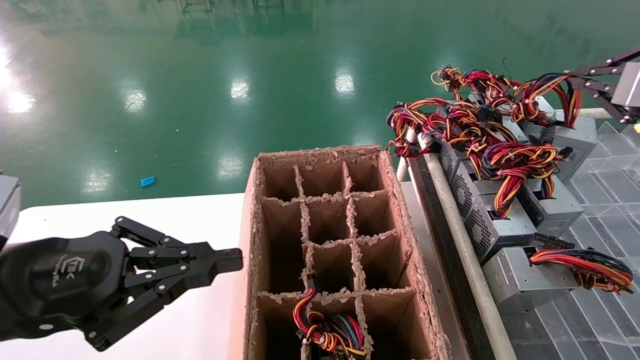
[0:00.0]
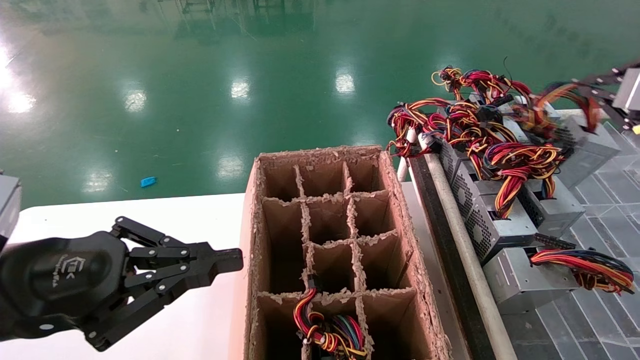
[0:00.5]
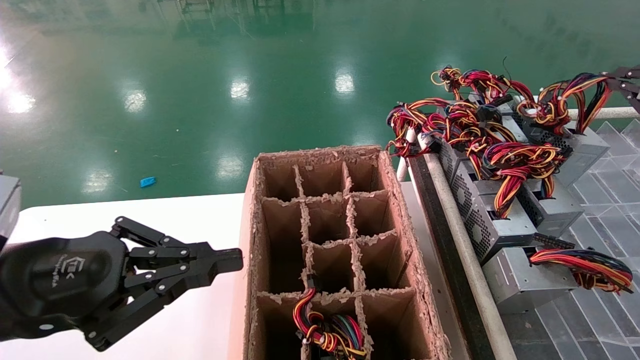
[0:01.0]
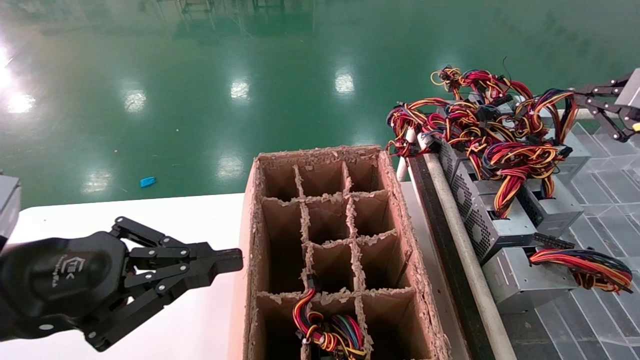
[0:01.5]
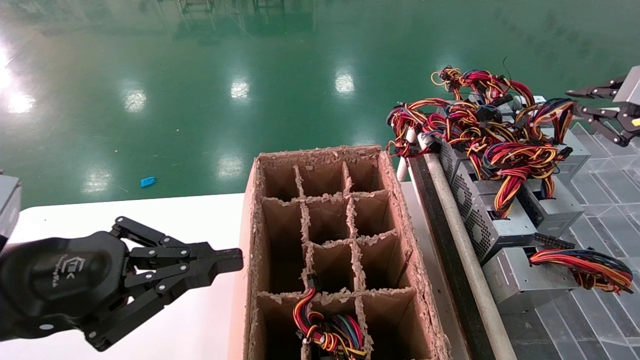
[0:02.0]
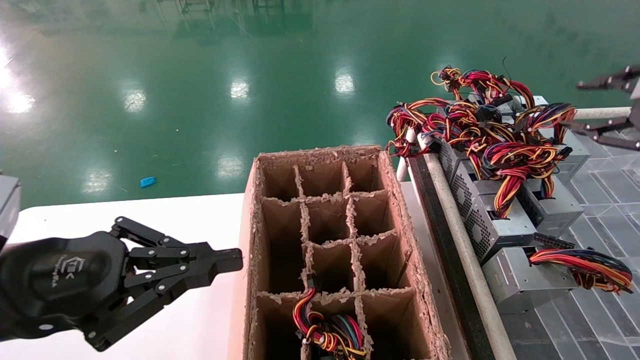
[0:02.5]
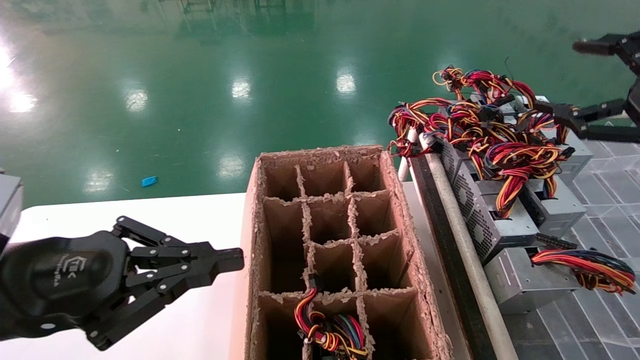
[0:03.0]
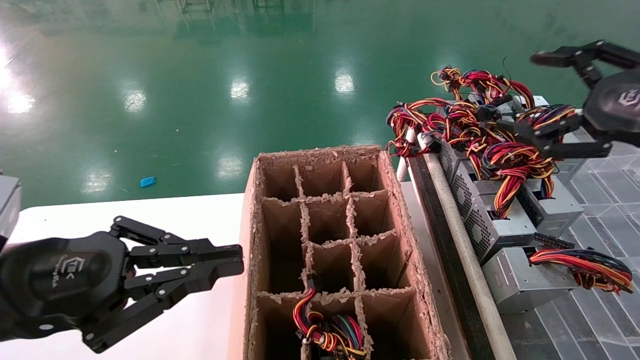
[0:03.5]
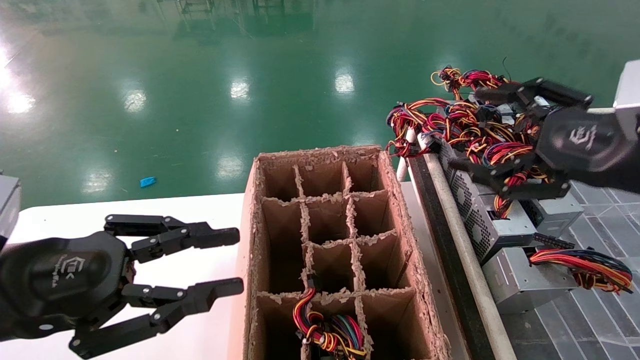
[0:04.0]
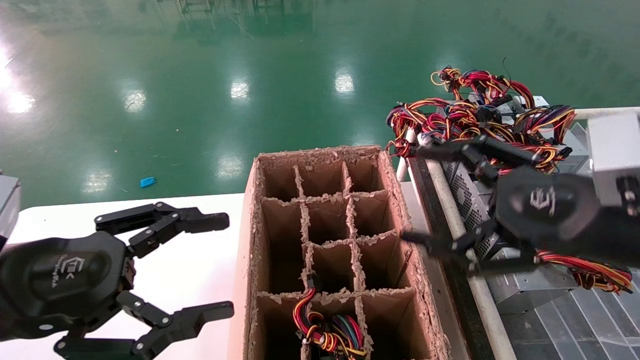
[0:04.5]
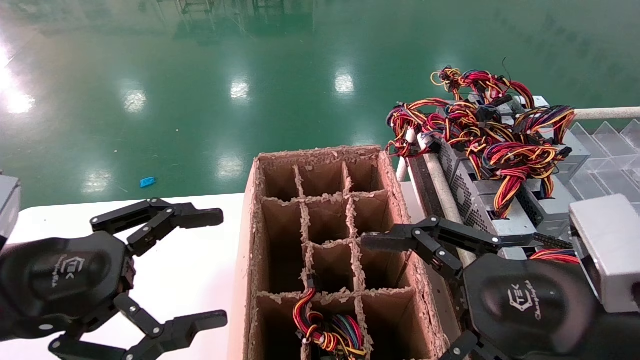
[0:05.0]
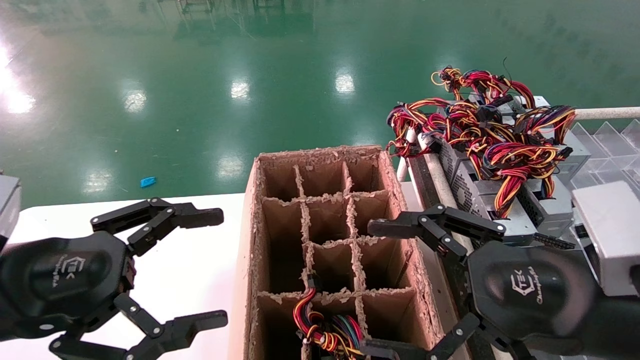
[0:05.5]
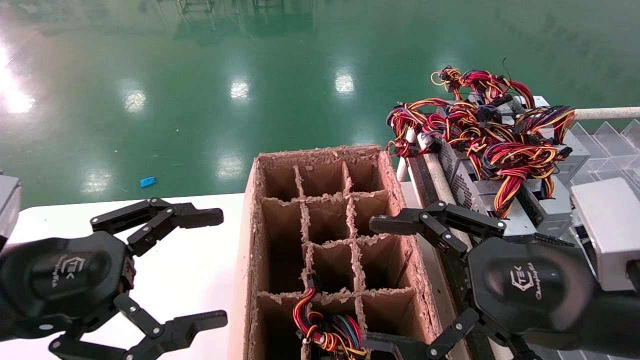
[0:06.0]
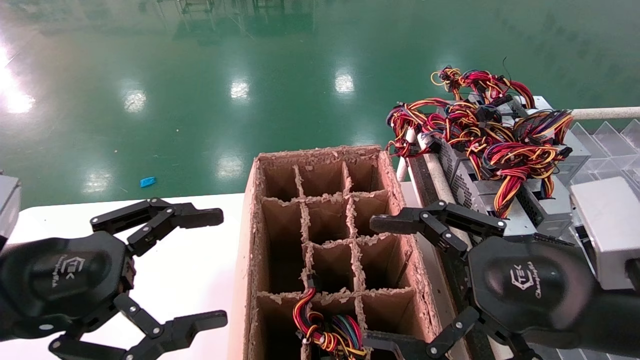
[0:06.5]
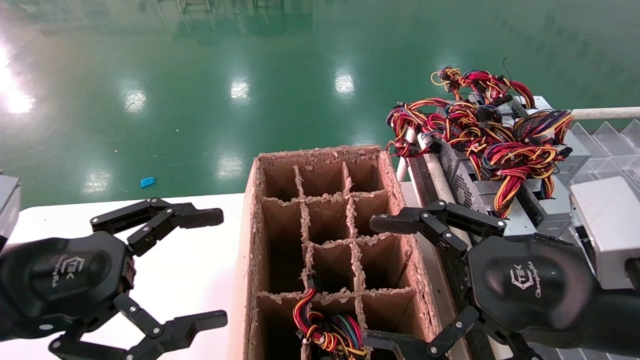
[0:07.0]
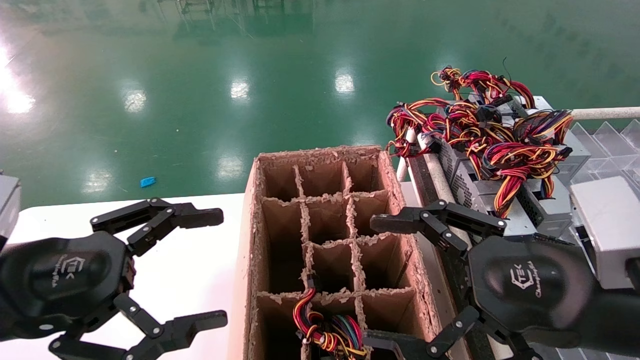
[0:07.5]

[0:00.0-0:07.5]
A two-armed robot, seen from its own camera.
Step, 0:00.0 to 0:02.5: Place the main unit power supply in the designated area.
0:00.0 to 0:02.0: The grippers stay close to where they were, moving slightly.
0:02.0 to 0:04.0: The right gripper travels to the left and backward by approximately 15 cm, and opens its fingers.
0:04.0 to 0:05.5: The left gripper opens its fingers, while the right gripper goes roughly 15 cm to the left, downward and backward.
0:05.5 to 0:07.5: Neither gripper changes place.

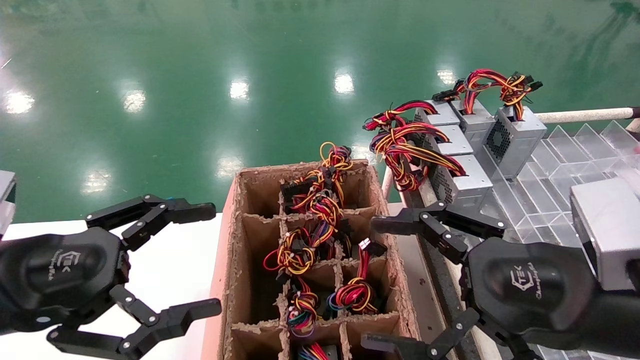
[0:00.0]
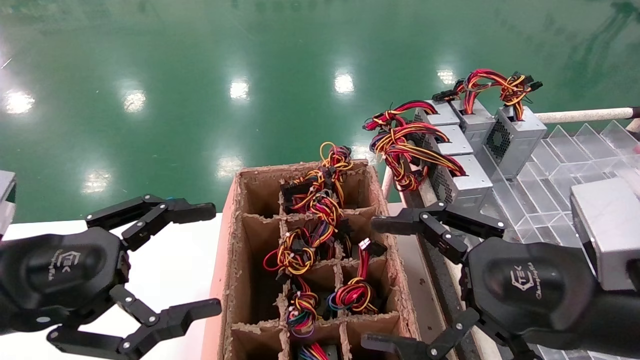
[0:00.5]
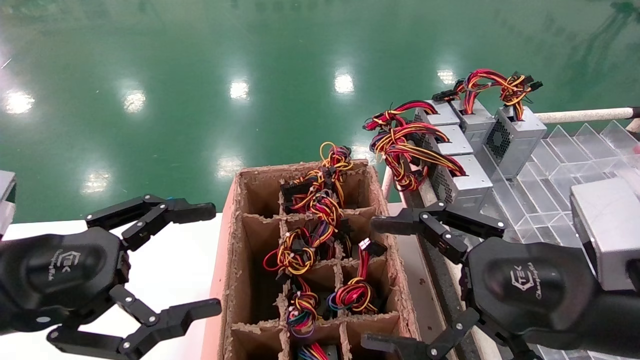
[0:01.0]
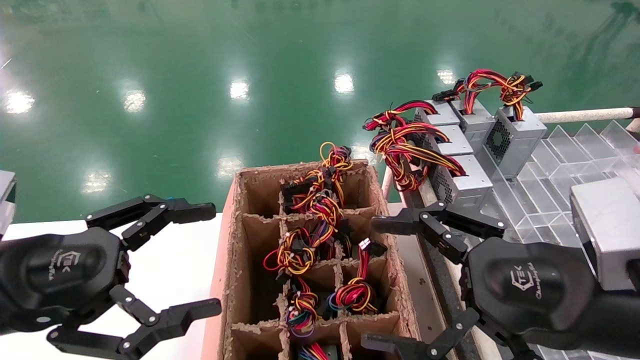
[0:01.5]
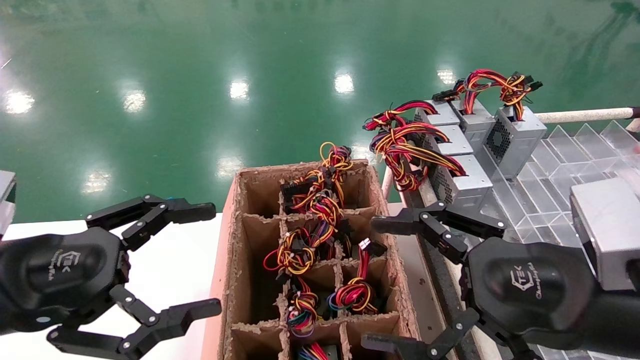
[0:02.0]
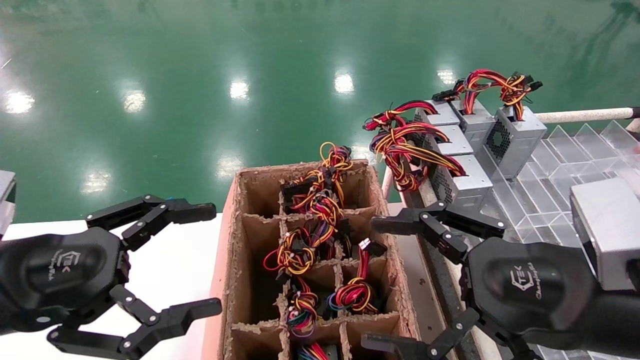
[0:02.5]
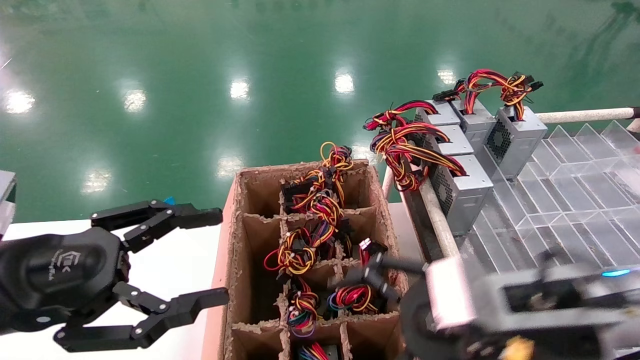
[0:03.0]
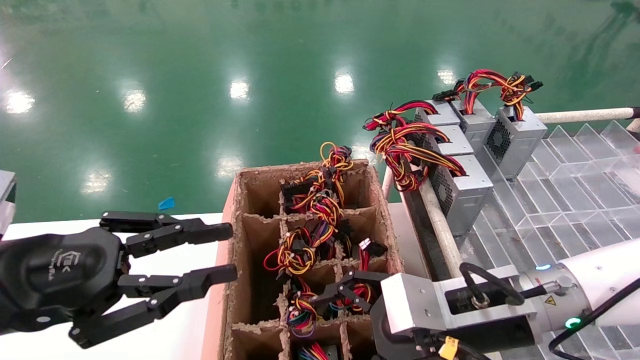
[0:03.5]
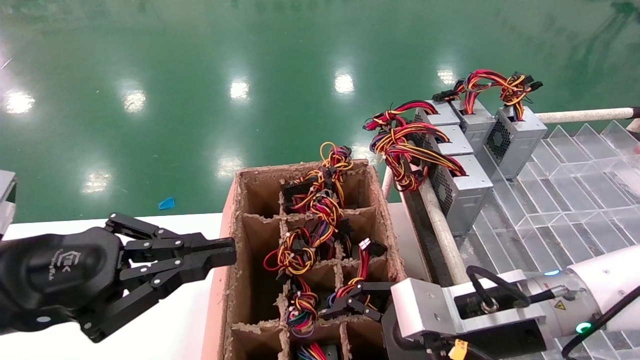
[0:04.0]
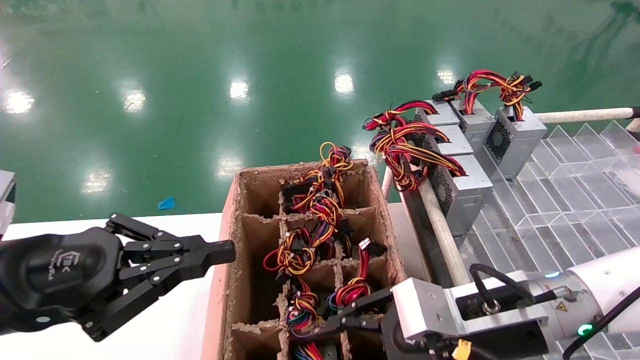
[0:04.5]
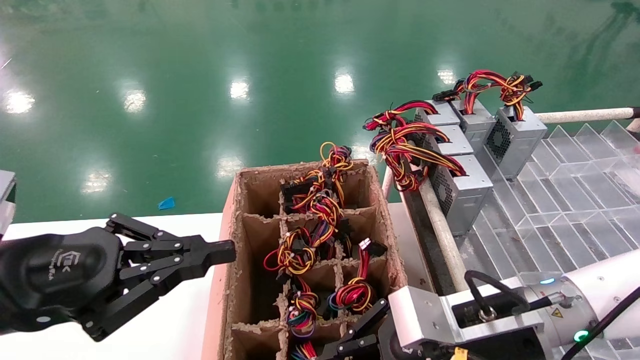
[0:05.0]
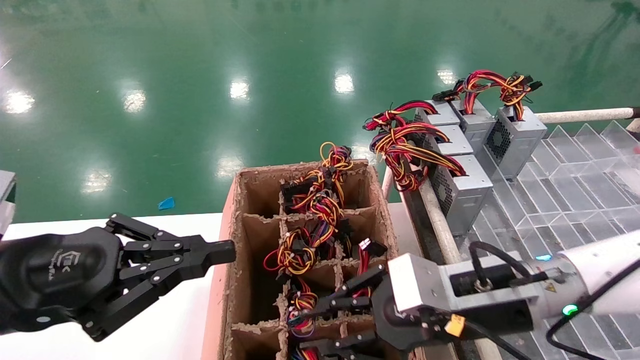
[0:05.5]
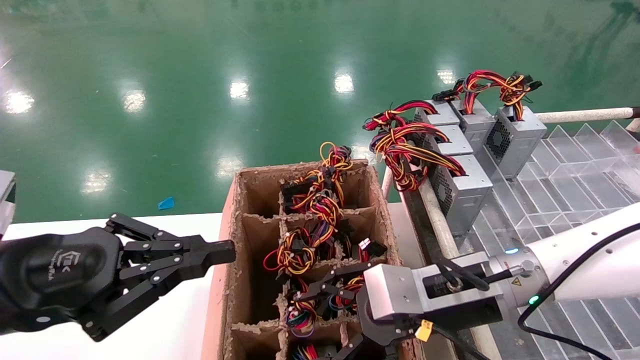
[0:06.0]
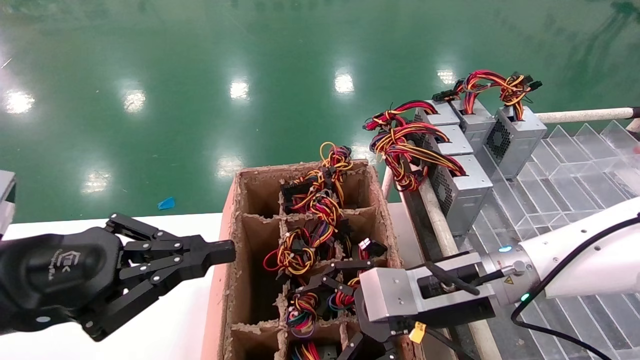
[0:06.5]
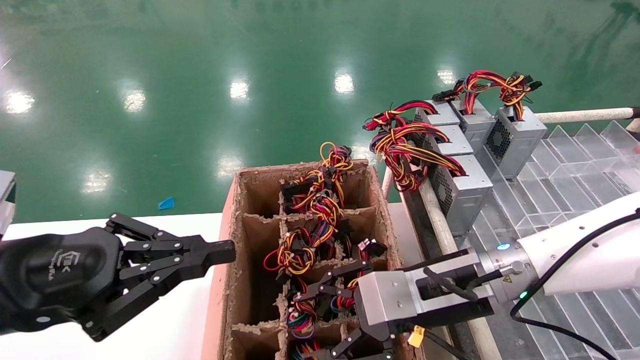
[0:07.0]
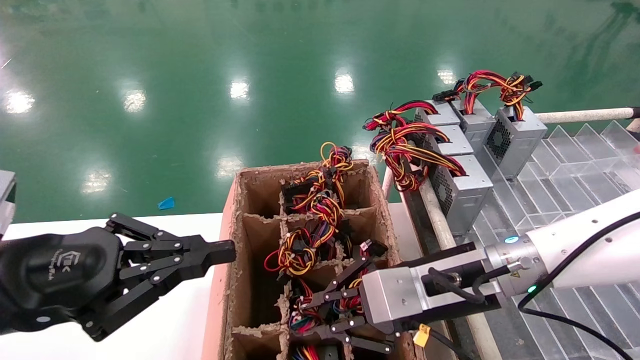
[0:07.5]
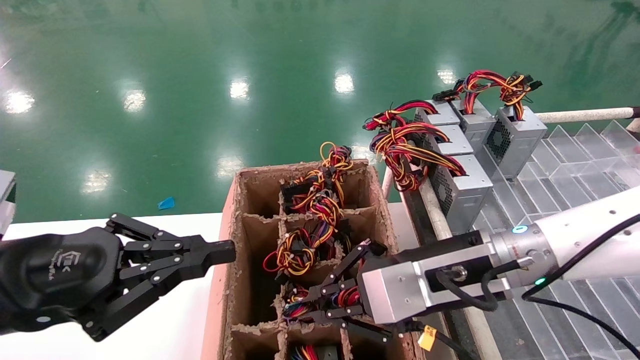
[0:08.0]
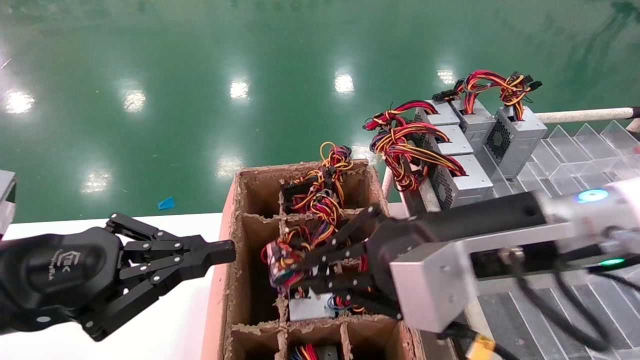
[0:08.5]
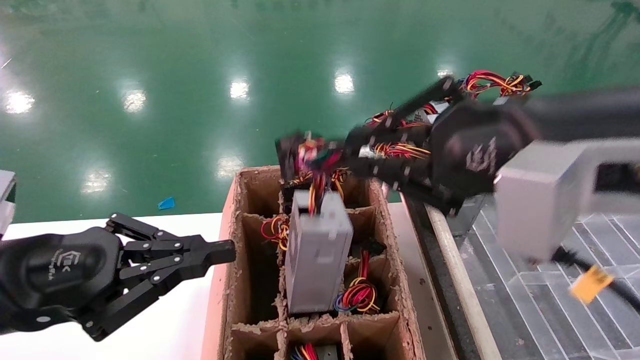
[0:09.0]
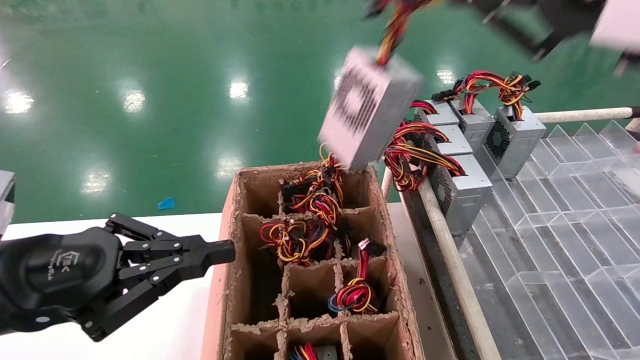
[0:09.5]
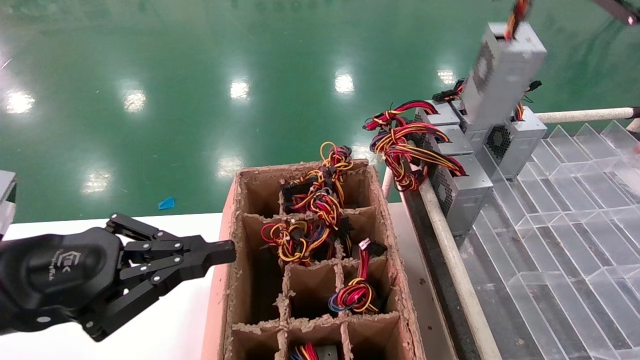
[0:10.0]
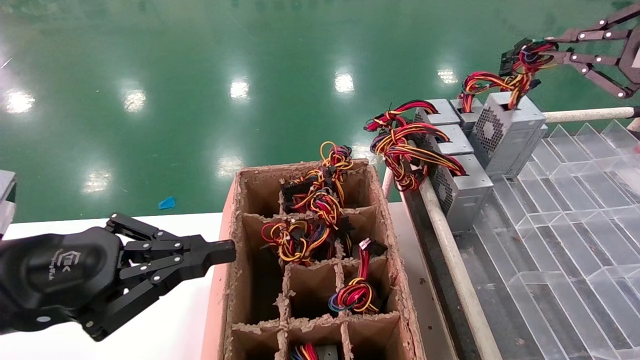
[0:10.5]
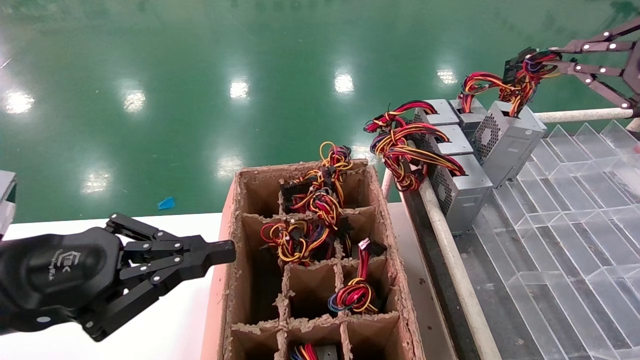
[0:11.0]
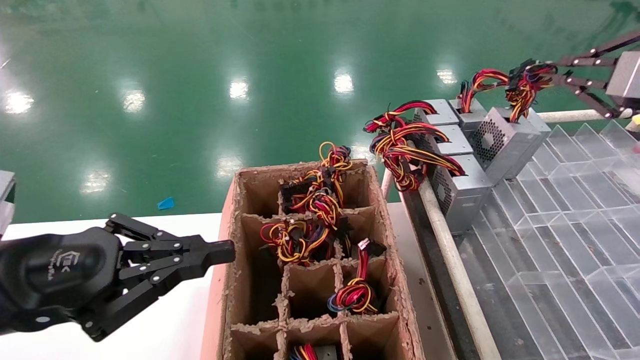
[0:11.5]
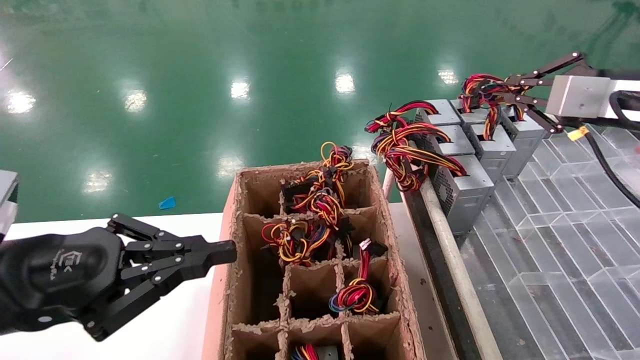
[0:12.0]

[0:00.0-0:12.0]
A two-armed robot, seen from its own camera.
Step, 0:03.5 to 0:07.5: Grab the main unit power supply from the containment box.
0:00.0 to 0:02.0: Both grippers stay about where they are.
0:02.0 to 0:04.0: The right gripper is displaced forward, downward and to the left by about 10 cm. Meanwhile the left gripper closes.
0:04.0 to 0:06.0: The right gripper closes.
0:06.0 to 0:08.0: The right gripper closes up.
0:08.0 to 0:10.0: The right gripper goes about 35 cm upward and to the right.
0:10.0 to 0:12.0: The right gripper heads forward and downward, covering approximately 15 cm.
